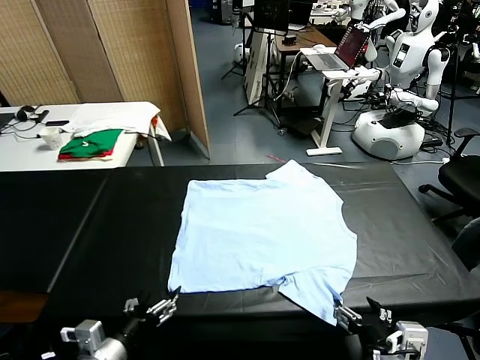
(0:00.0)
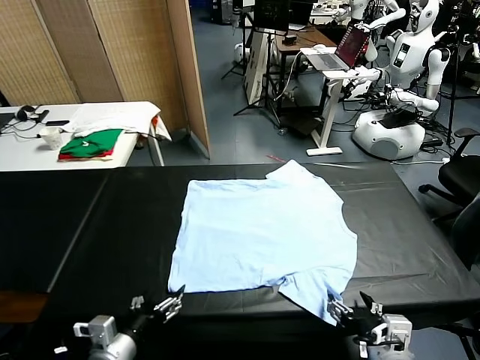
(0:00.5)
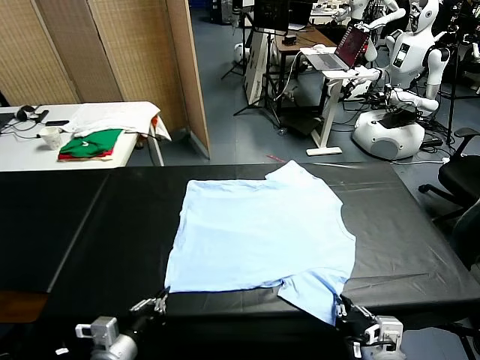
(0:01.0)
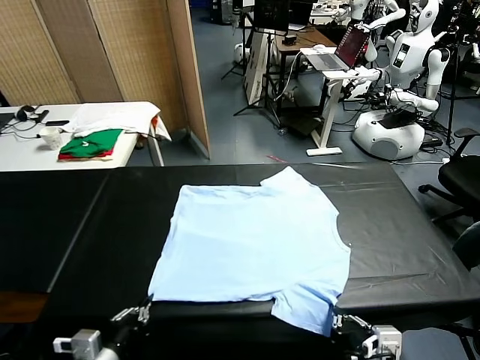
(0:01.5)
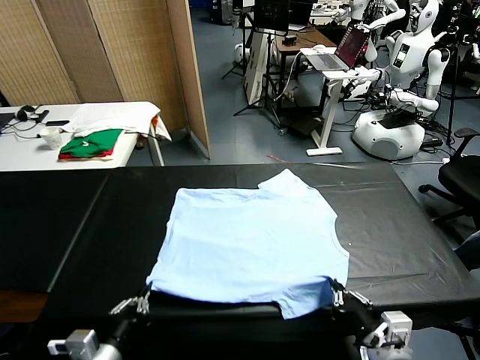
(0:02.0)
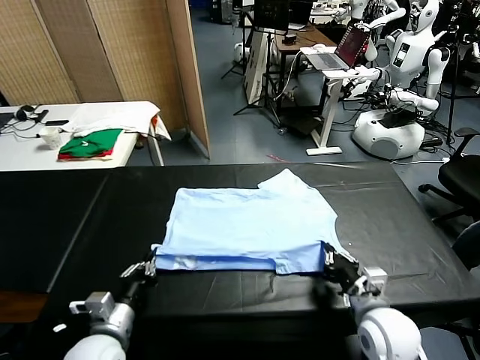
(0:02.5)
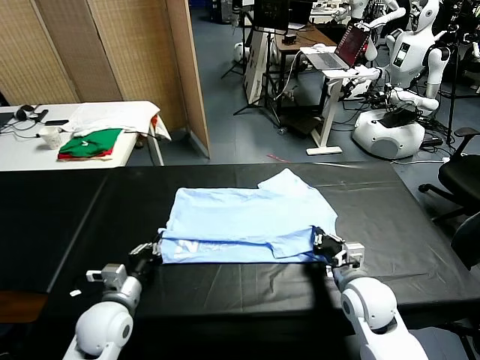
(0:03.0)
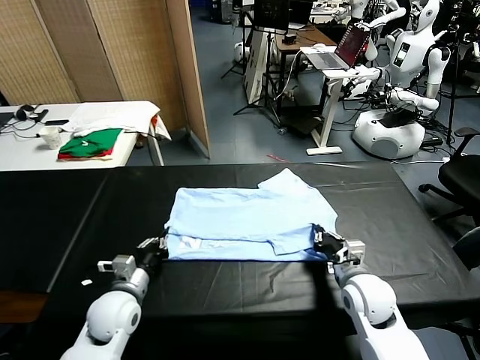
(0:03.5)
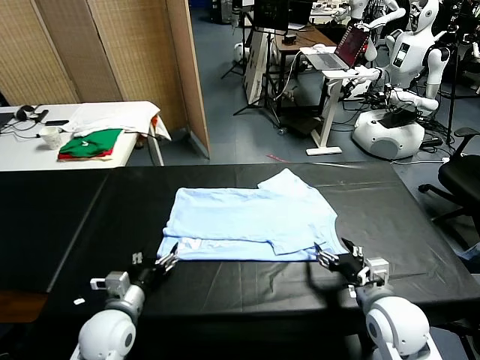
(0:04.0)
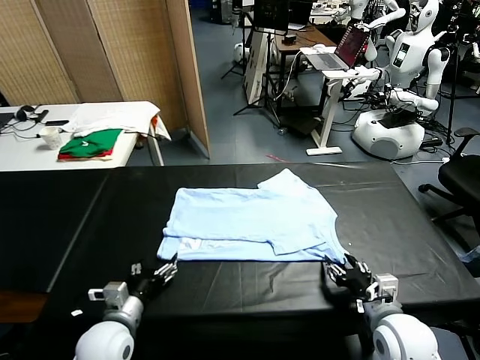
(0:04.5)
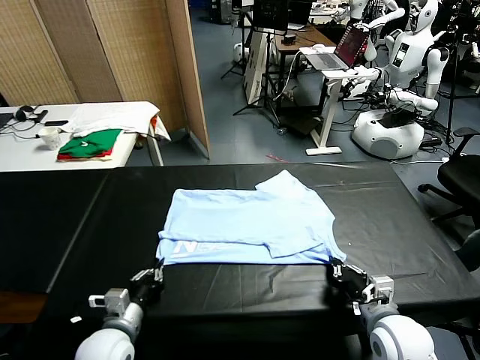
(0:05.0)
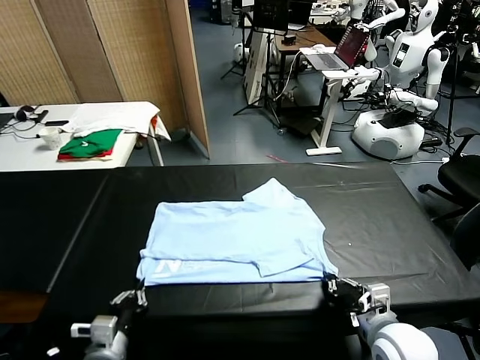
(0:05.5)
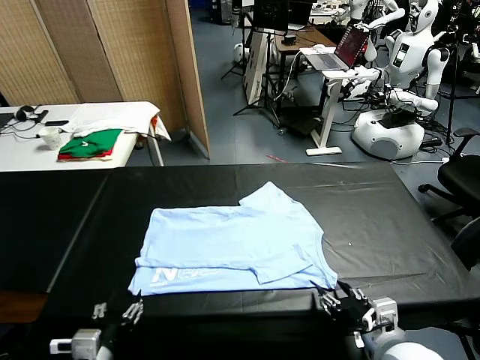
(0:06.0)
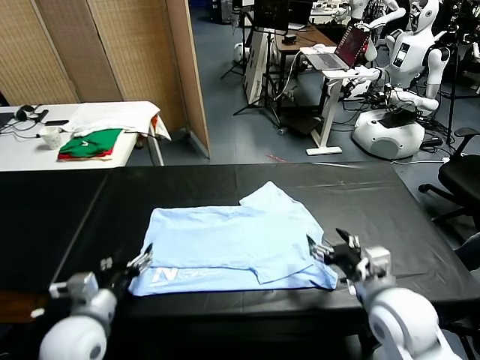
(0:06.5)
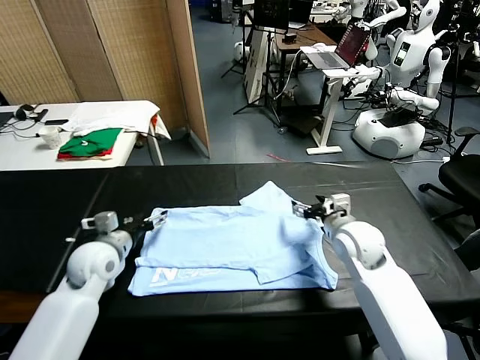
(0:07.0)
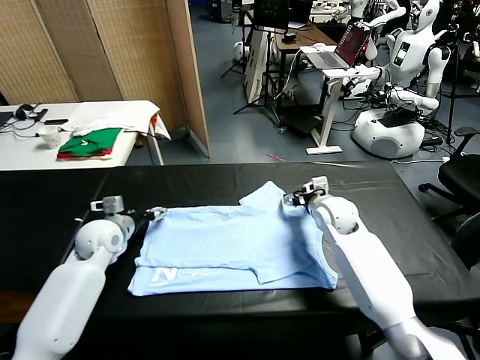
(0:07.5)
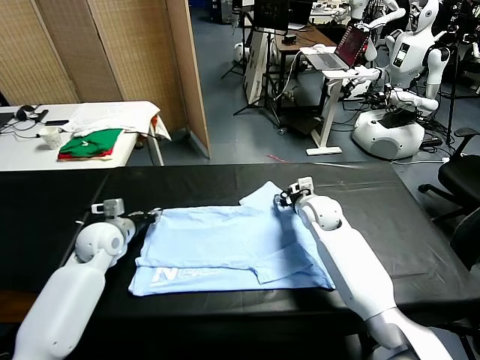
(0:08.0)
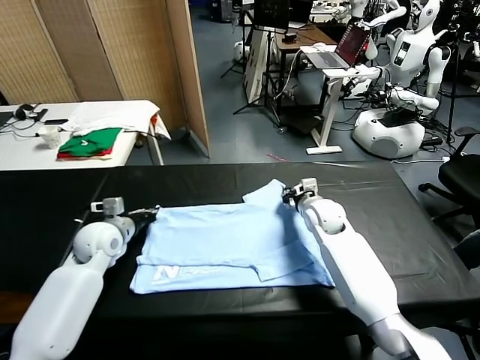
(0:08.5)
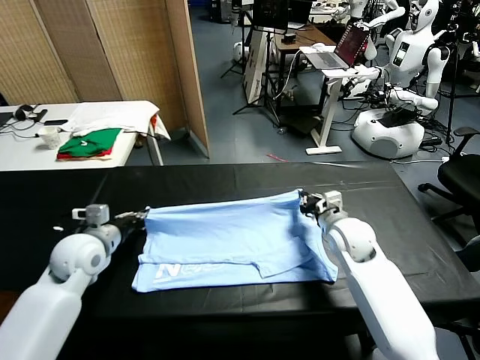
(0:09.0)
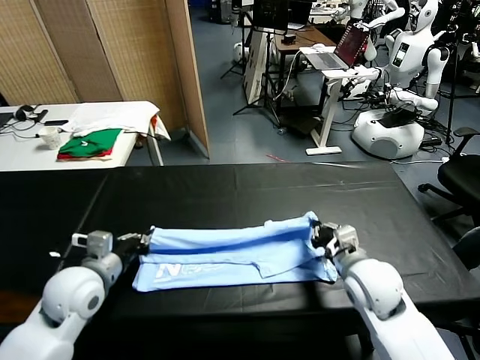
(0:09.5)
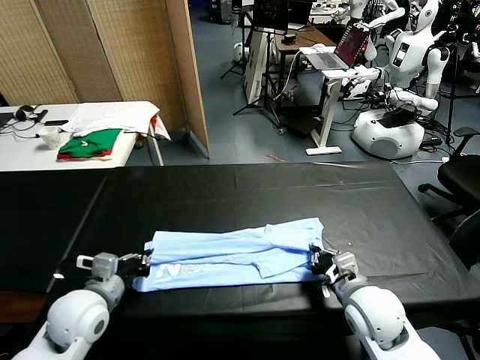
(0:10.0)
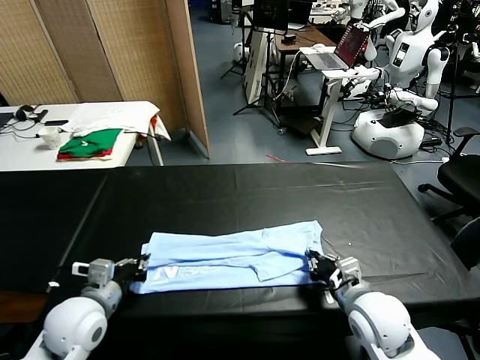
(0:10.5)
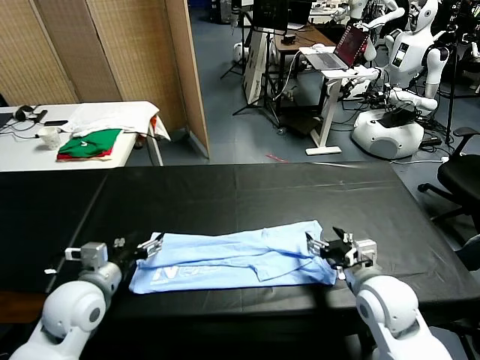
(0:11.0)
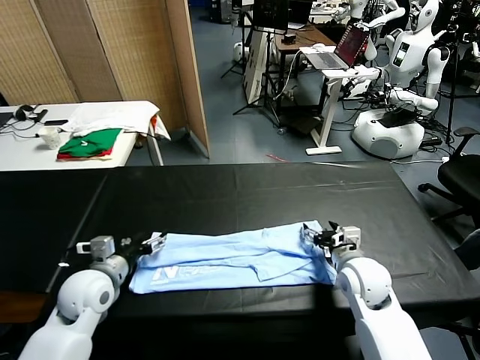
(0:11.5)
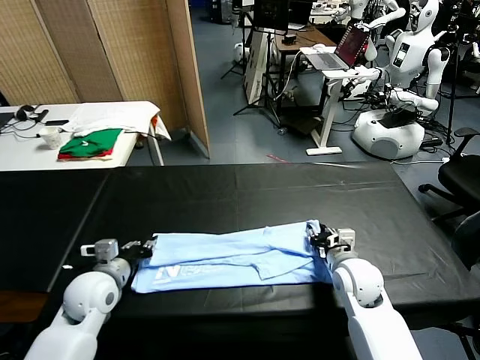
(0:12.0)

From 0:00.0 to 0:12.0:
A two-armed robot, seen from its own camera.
Task of the whole recording: fold and organize the clothes.
Step, from 0:00.0 to 0:01.5: use both grippers simultaneously to clamp the lower edge of the clothing fabric.
Step, from 0:02.0 to 0:04.0: use both grippers to drag the lower edge of the fabric forward and fold it over the upper edge.
Step, from 0:04.5 to 0:06.0: Drag the clothes downward with both gripper.
Step, from 0:06.5 to 0:08.5: use both grippers simultaneously to clamp the upper edge of the clothing fabric.
Step, from 0:09.0 to 0:10.5: use both grippers to drag the upper edge of the fabric backward and fold it over the lower edge.
From 0:02.0 to 0:04.0: The right gripper goes roughly 5 cm forward, and opens, while the left gripper travels forward and downward by roughly 10 cm, and opens its fingers.
From 0:04.0 to 0:06.0: The left gripper shifts some 10 cm backward and upward, and closes, then reopens; the right gripper is displaced upward and backward by approximately 10 cm, and closes, then reopens.
From 0:06.0 to 0:08.0: Both grippers travel together forward, about 30 cm. The left gripper closes up, while the right gripper closes.
From 0:08.0 to 0:10.0: The grippers both shift backward by some 20 cm.
From 0:10.0 to 0:12.0: Both grippers travel together forward, some 5 cm. The right gripper opens, then closes once more. Meanwhile the left gripper opens, then closes once more.

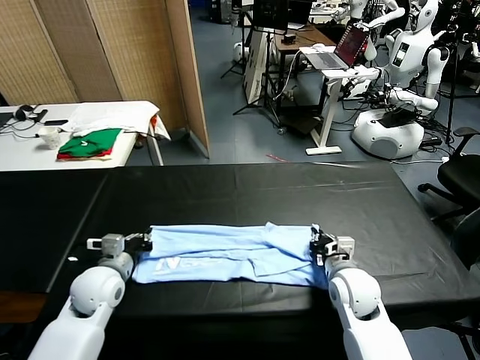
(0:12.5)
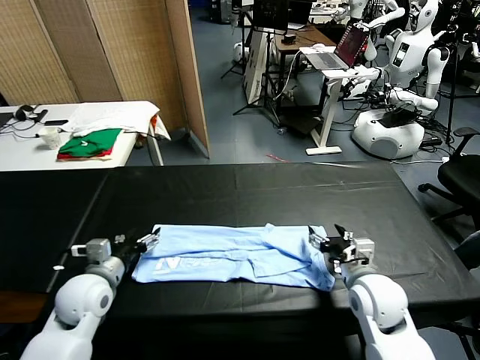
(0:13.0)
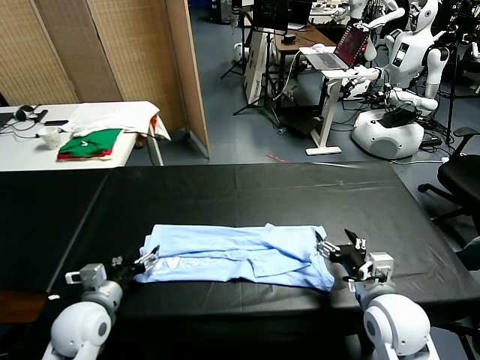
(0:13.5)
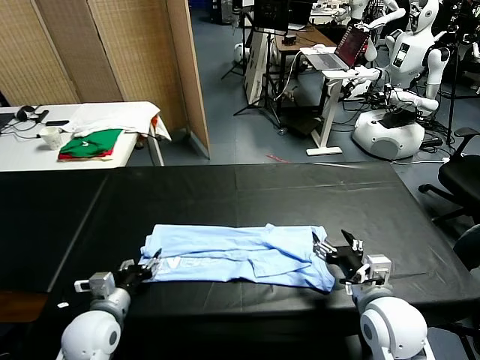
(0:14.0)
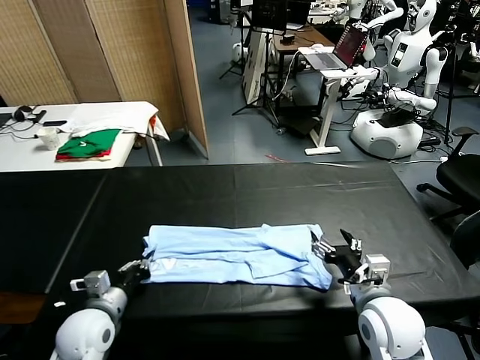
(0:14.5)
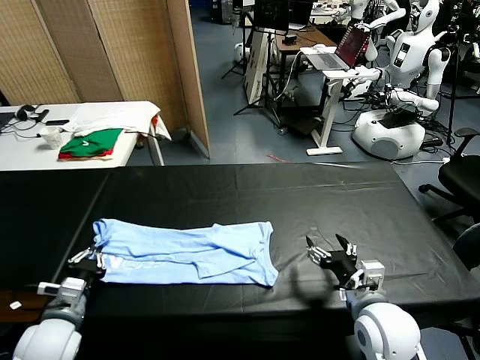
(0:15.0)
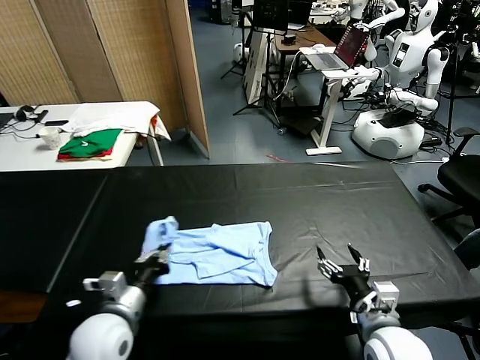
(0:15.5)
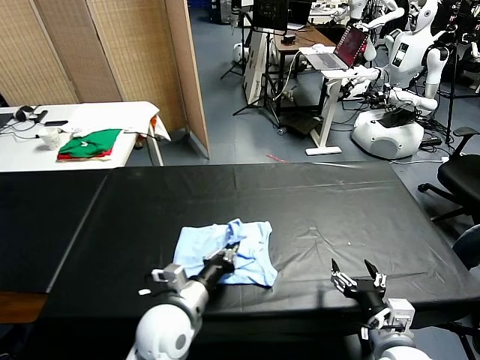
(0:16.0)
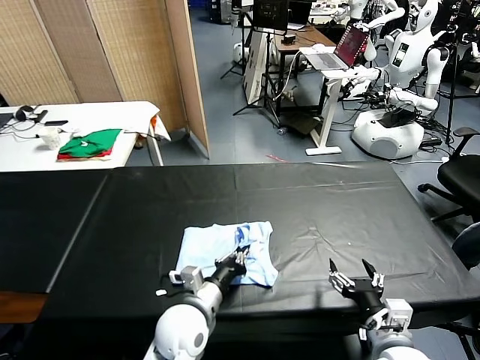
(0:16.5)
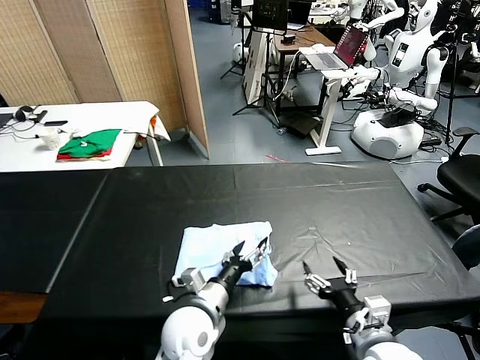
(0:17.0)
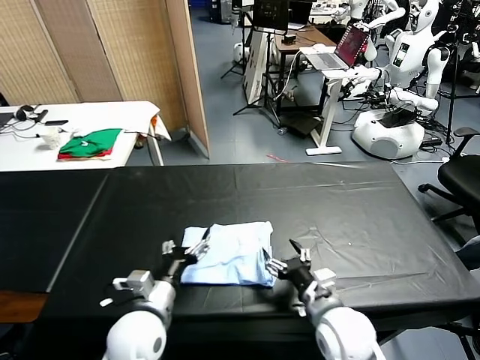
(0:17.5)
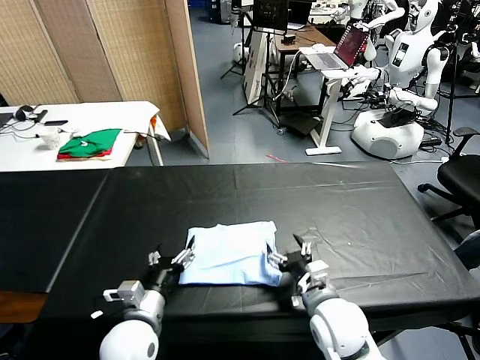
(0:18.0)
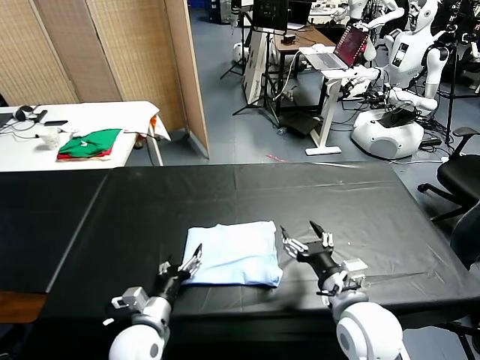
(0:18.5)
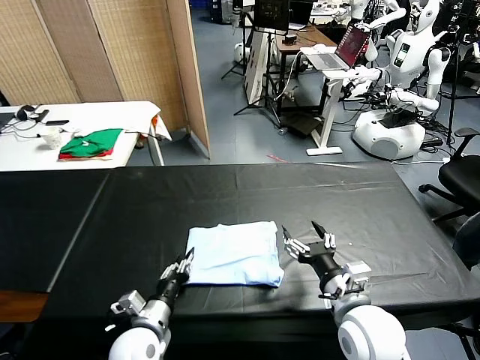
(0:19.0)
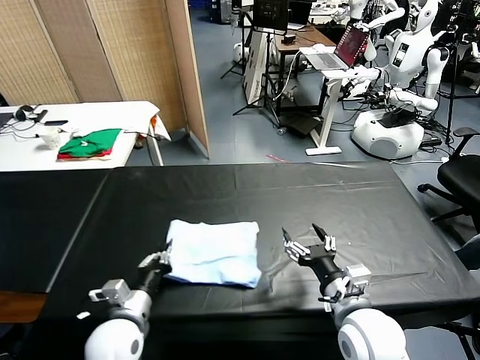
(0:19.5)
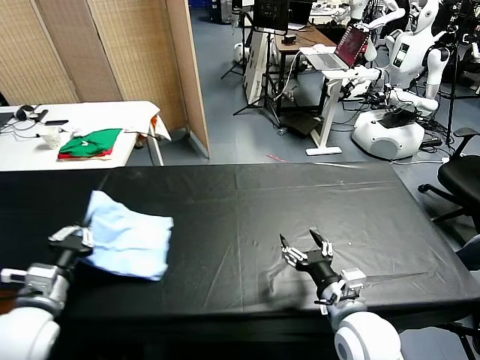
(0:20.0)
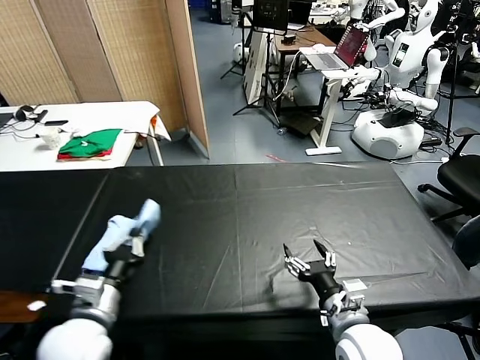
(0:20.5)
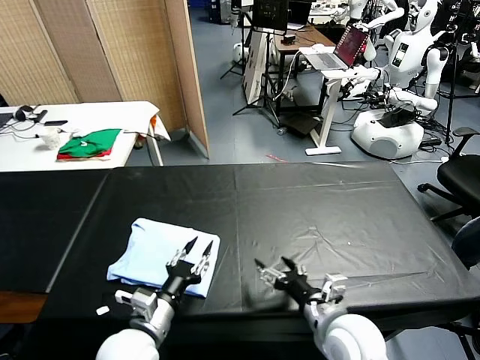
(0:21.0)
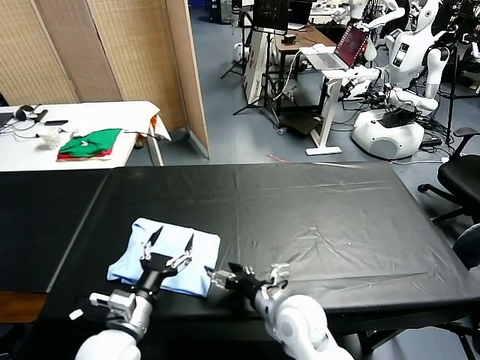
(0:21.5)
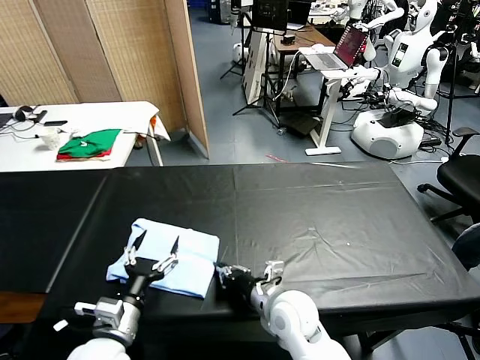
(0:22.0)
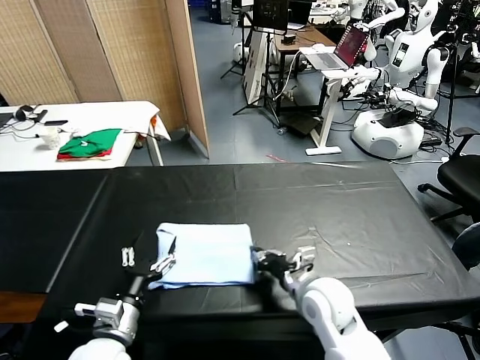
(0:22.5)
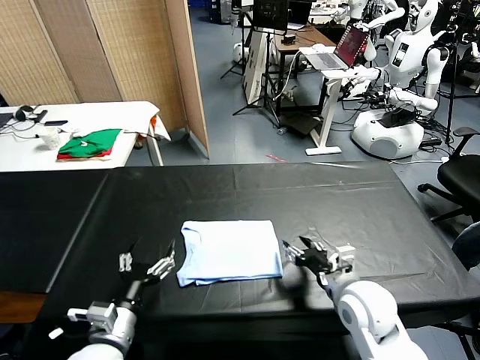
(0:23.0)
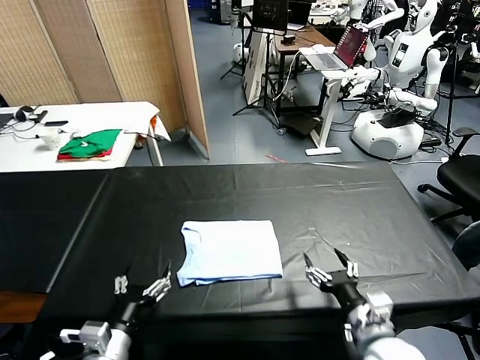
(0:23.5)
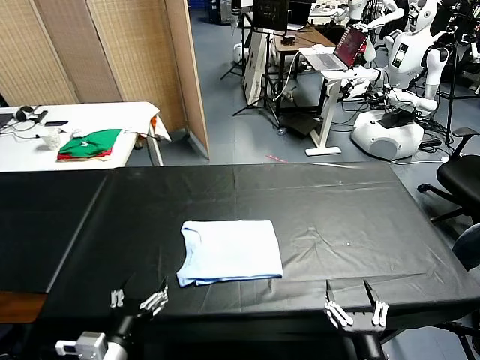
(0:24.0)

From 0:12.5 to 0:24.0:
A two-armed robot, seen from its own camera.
Task of the whole recording: fold and organize the clothes.
Step, from 0:12.5 to 0:14.5: use the left gripper to clamp the left edge of the fabric.
Step, from 0:15.0 to 0:17.0: use the left gripper to drag the left edge of the fabric to the left and folds it over the right edge.
Step, from 0:17.5 to 0:21.0: Flip the folded clothes over with left gripper.
Step, from 0:21.5 to 0:22.5: Drag the clothes to the center of the table.
From 0:12.5 to 0:14.5: The right gripper heads backward and upward, covering about 10 cm, and opens up. Meanwhile the left gripper heads backward, covering about 10 cm, and opens and closes again.
From 0:14.5 to 0:16.5: The left gripper goes approximately 20 cm to the right; the right gripper travels backward by roughly 5 cm.
From 0:16.5 to 0:18.5: The left gripper travels to the left by approximately 10 cm, and opens up; the right gripper moves forward and to the left, about 10 cm.
From 0:18.5 to 0:20.0: The left gripper travels upward and to the left by some 20 cm, and closes.
From 0:20.0 to 0:22.0: The left gripper is displaced to the right and downward by about 15 cm, and opens its fingers, while the right gripper is displaced to the left, downward and forward by approximately 15 cm, and closes up.
From 0:22.0 to 0:24.0: The right gripper is displaced backward and to the right by roughly 25 cm, and opens. The left gripper is displaced backward by some 5 cm.

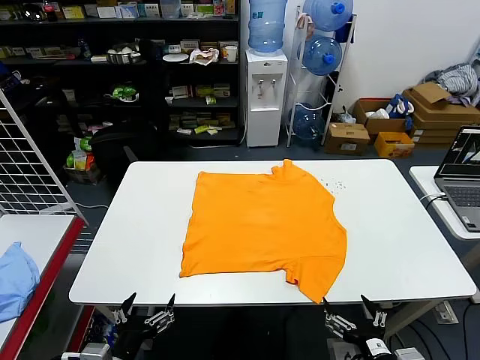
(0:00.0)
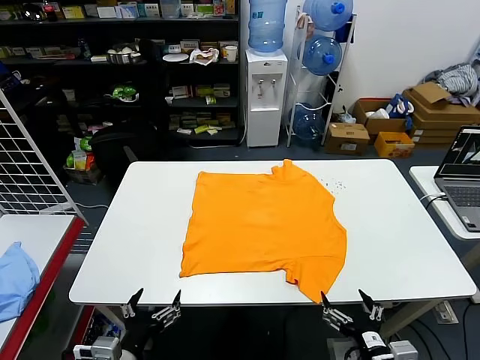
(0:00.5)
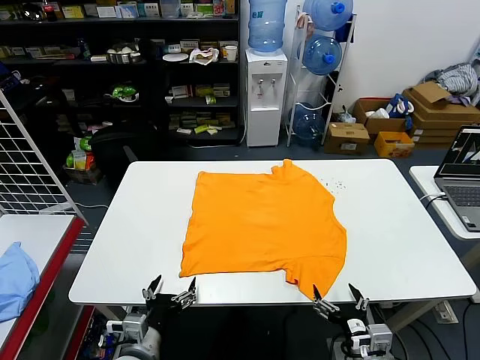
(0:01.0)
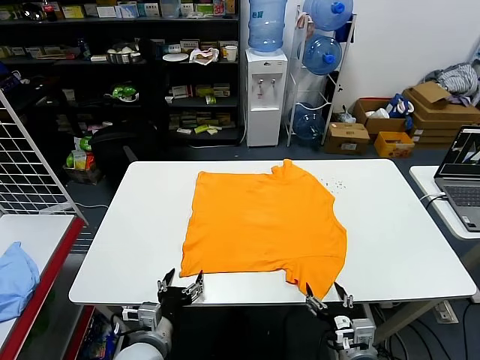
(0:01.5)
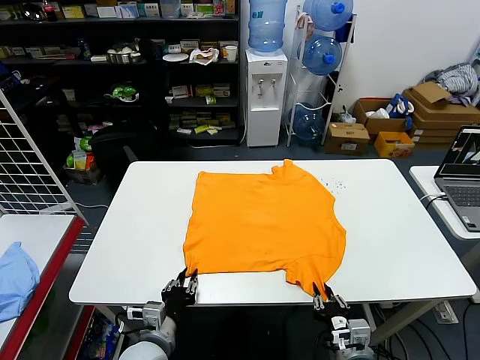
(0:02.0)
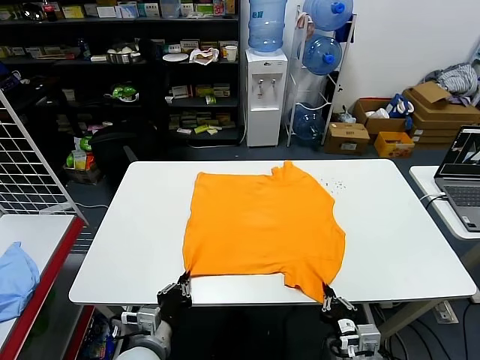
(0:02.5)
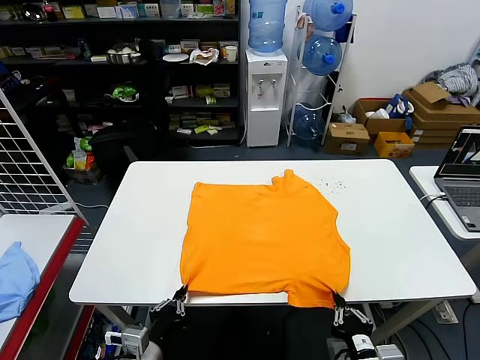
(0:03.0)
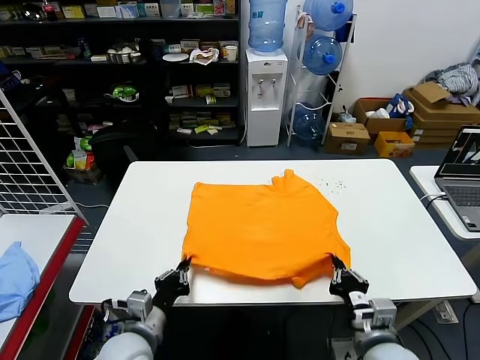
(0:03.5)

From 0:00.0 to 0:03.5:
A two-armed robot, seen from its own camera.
Task of the whole recording: fold and organize the clothes.
Step, from 0:00.0 to 0:02.0: use both grippers simultaneously to clamp the lower edge of the clothing fabric.
From 0:02.0 to 0:03.5: The left gripper ends up about 5 cm from where it was. Meanwhile the right gripper travels upward by approximately 5 cm.
